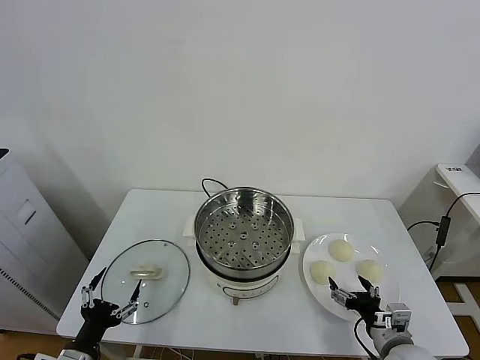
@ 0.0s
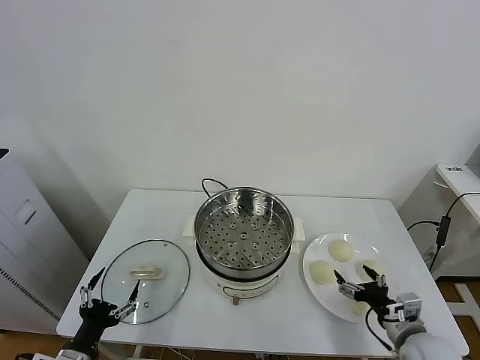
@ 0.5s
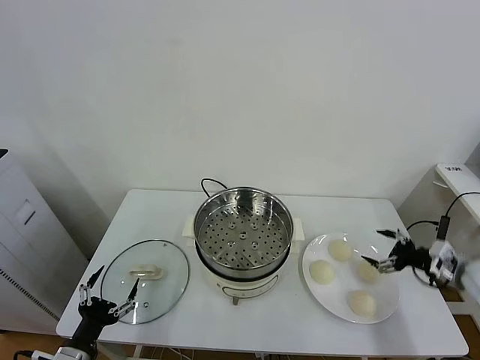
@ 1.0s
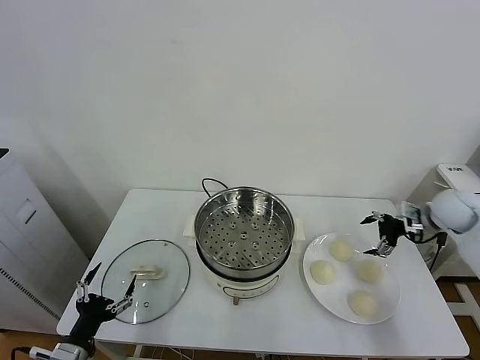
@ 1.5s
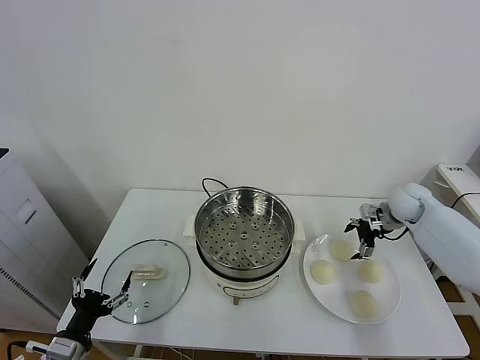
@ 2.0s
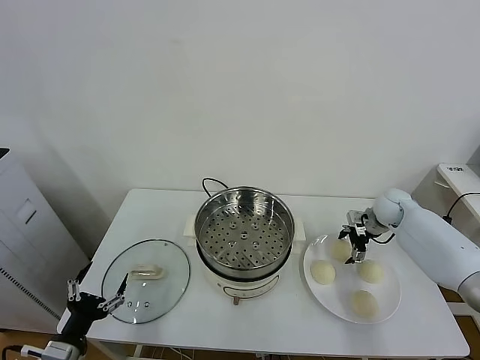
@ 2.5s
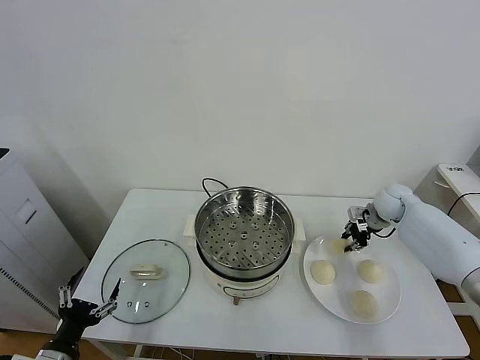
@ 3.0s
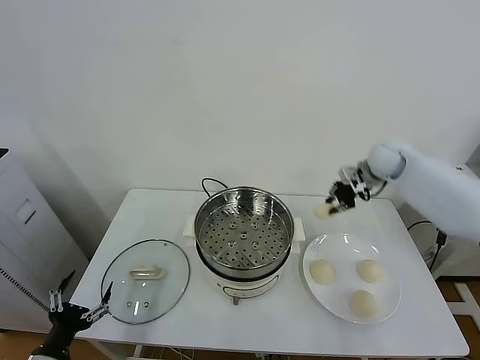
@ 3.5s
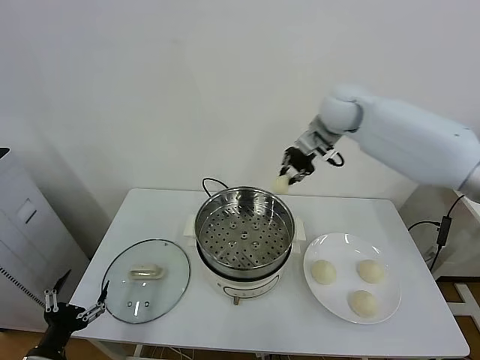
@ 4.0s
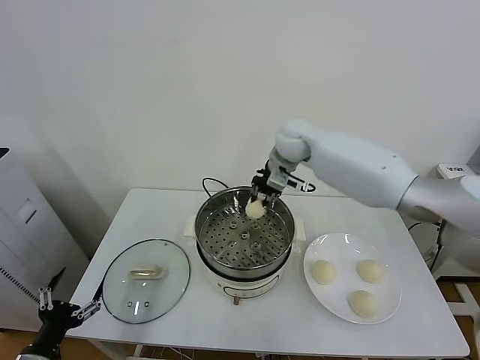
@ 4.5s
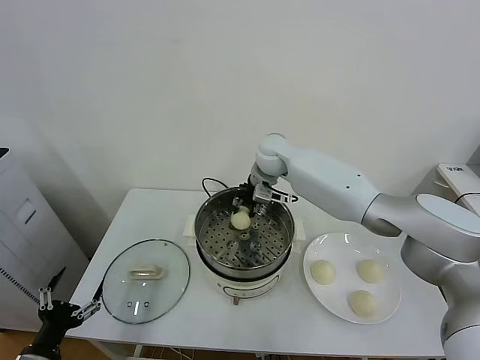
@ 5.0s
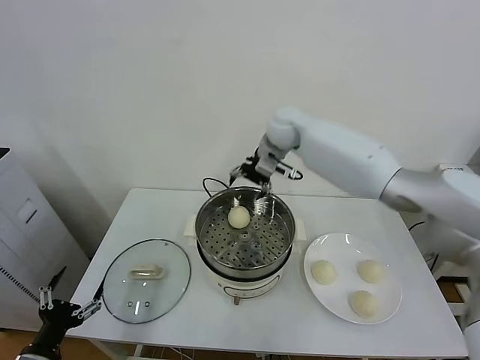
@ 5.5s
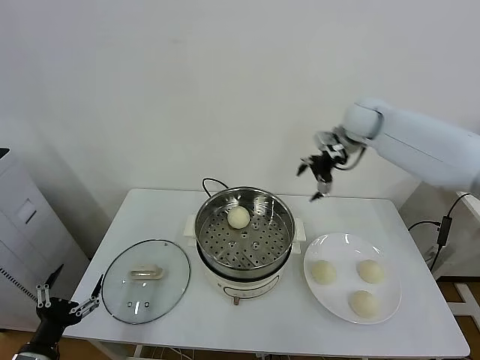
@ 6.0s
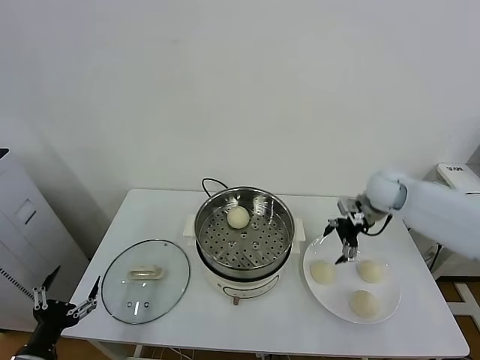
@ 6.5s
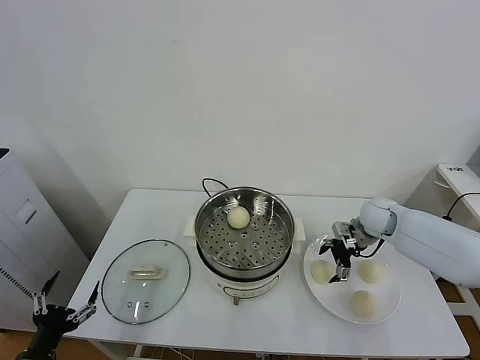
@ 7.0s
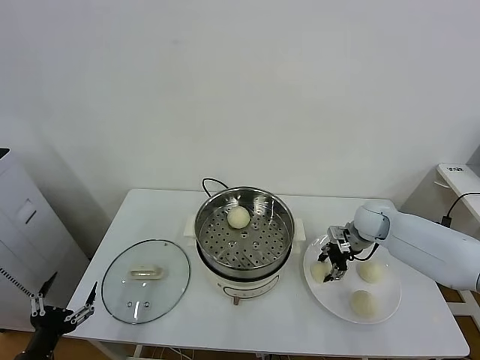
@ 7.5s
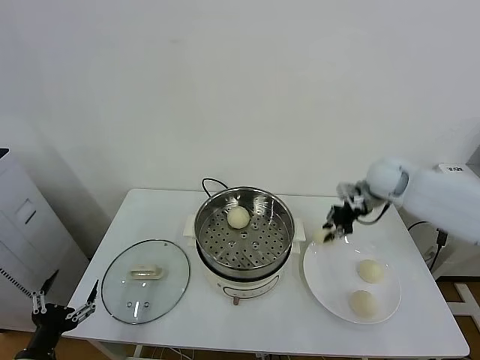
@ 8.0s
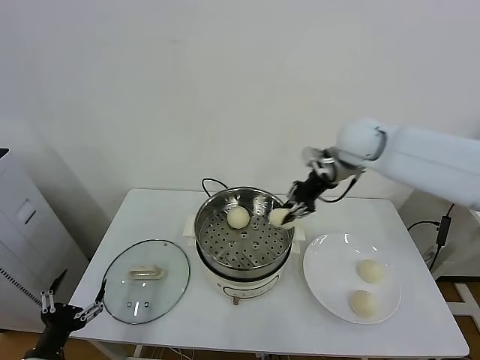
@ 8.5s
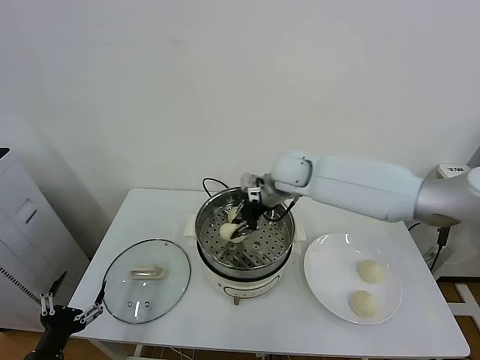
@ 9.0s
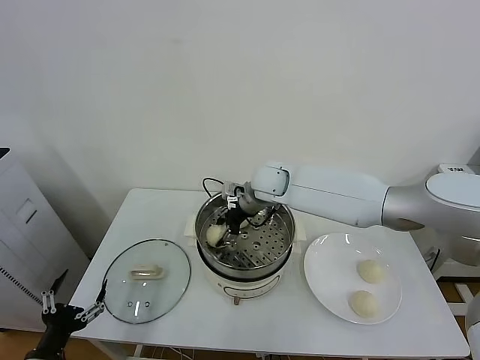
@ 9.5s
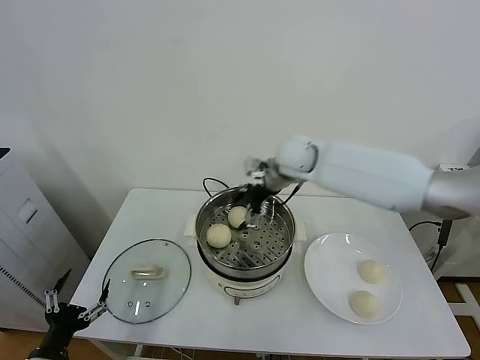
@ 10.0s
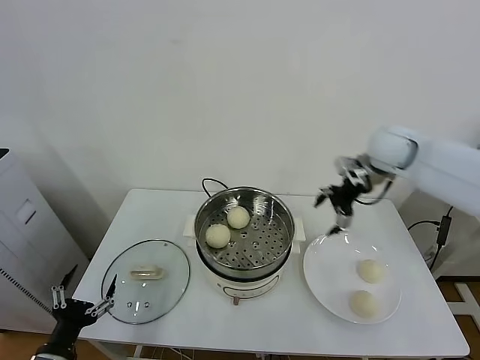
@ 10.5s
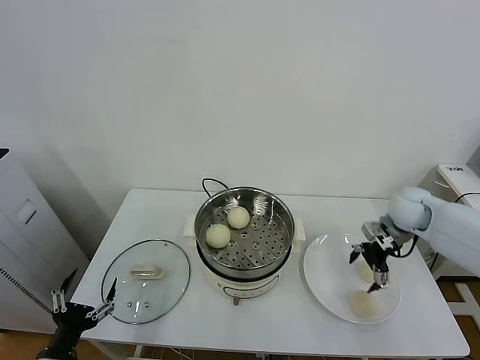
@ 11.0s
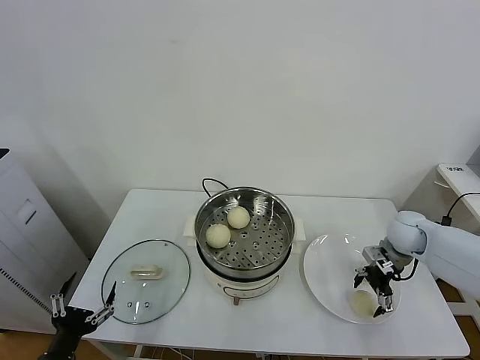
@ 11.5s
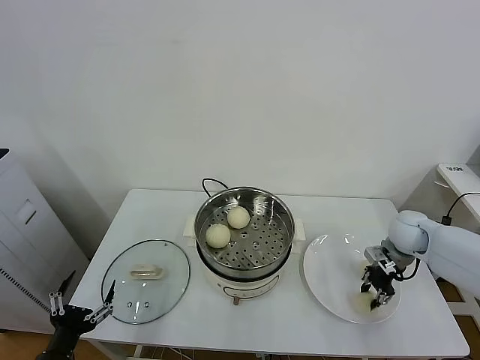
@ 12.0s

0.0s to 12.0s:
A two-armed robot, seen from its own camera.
Task of the whole recording: take steamed baozi put them in steamer.
Step, 0.0s to 2.5s: Grasp the baozi in the plate with right gripper.
Step, 3.0s to 5.0s: Place the baozi on the steamer with right gripper.
Step, 5.5s to 7.5s: Grasp the baozi in the plate with right gripper.
Step, 8.0s to 9.5s: Place the baozi on the steamer with right gripper.
2.0s to 4.0s: The right gripper shifts about 35 cm to the left and upward, and closes.
4.0s to 6.0s: The right gripper heads to the right, covering approximately 10 cm, and opens up.
6.0s to 8.0s: The right gripper moves some 20 cm downward and comes back, and closes up.
8.0s to 10.0s: The right gripper heads to the left, covering about 20 cm, and opens.
10.0s to 12.0s: The right gripper moves to the right and downward, roughly 30 cm, and closes up.

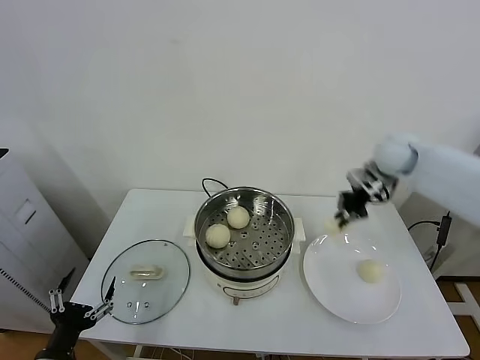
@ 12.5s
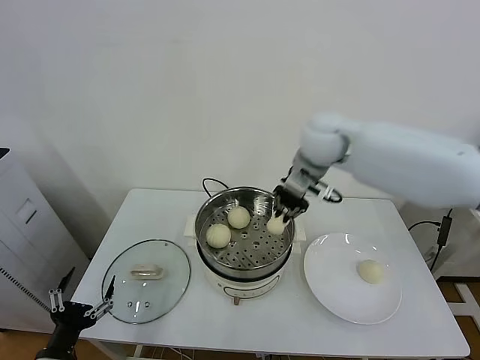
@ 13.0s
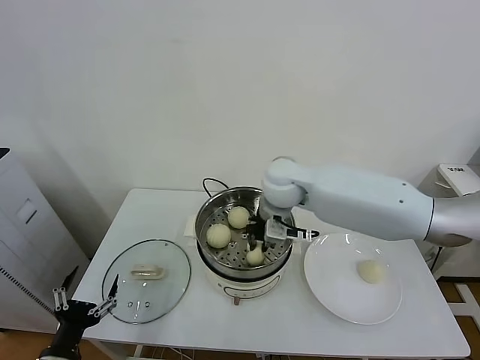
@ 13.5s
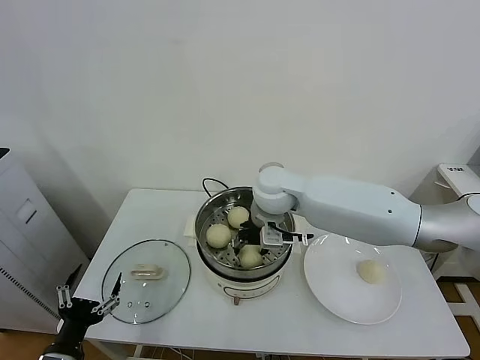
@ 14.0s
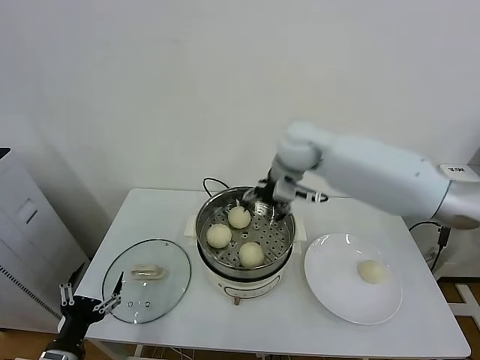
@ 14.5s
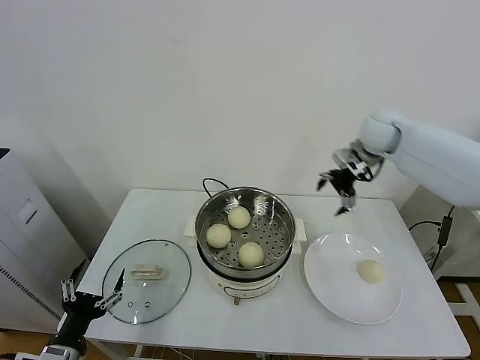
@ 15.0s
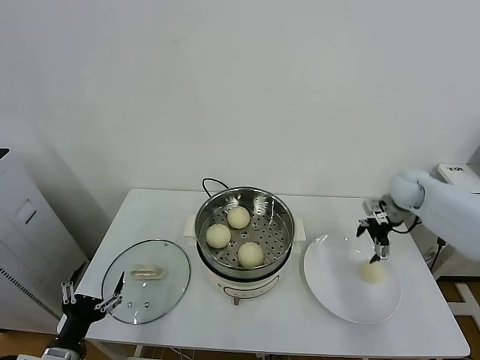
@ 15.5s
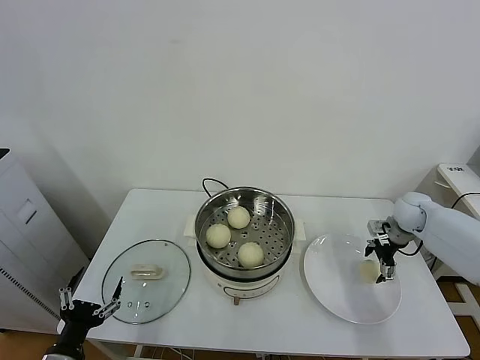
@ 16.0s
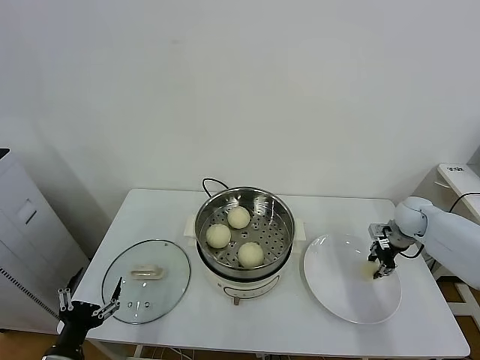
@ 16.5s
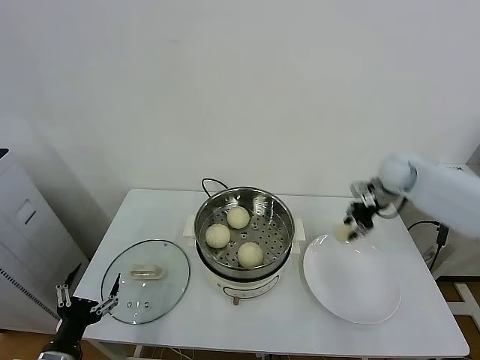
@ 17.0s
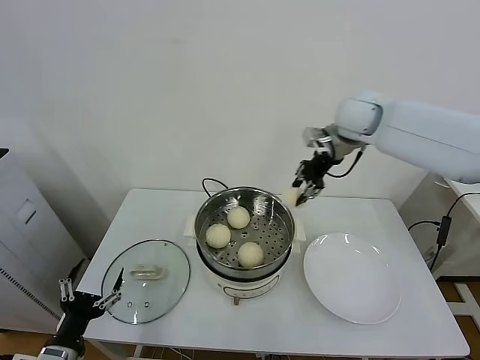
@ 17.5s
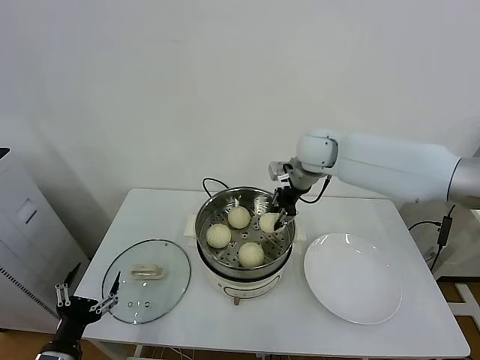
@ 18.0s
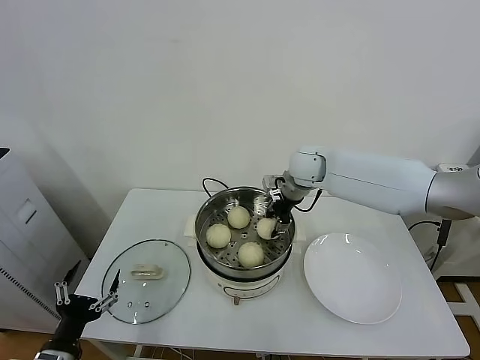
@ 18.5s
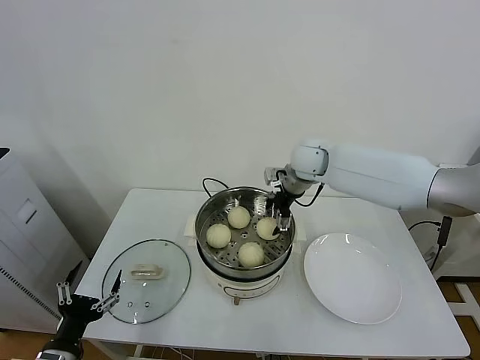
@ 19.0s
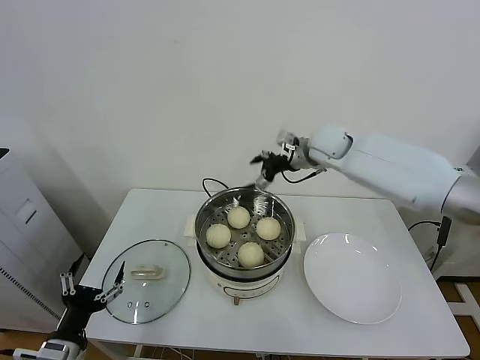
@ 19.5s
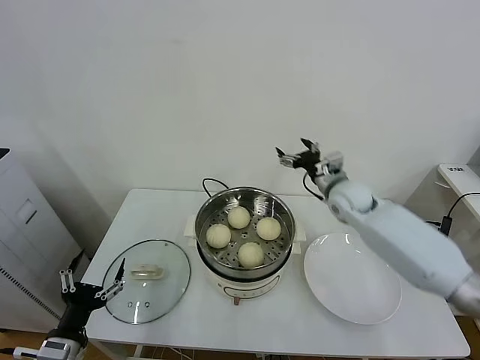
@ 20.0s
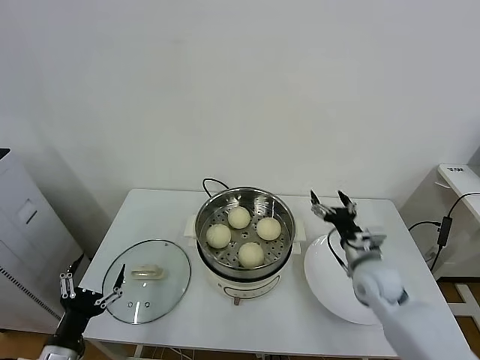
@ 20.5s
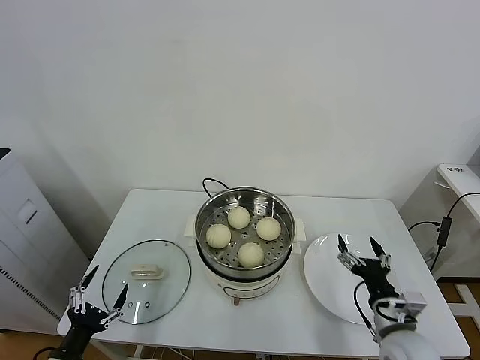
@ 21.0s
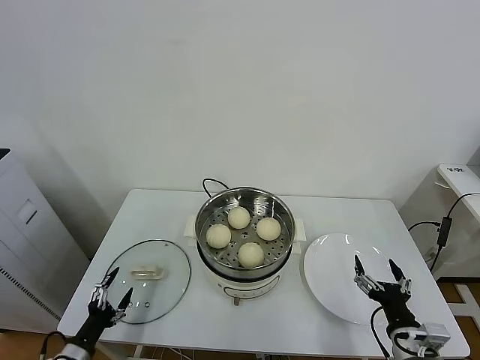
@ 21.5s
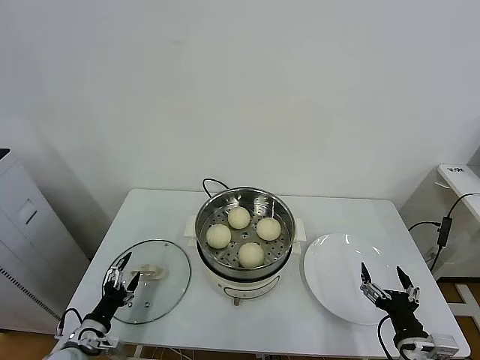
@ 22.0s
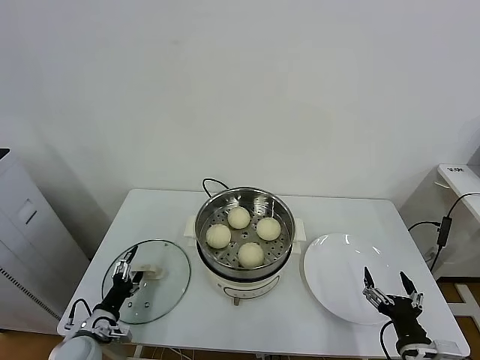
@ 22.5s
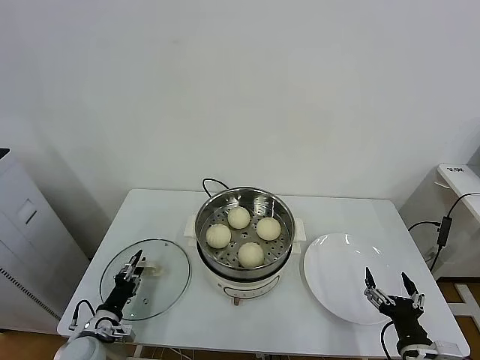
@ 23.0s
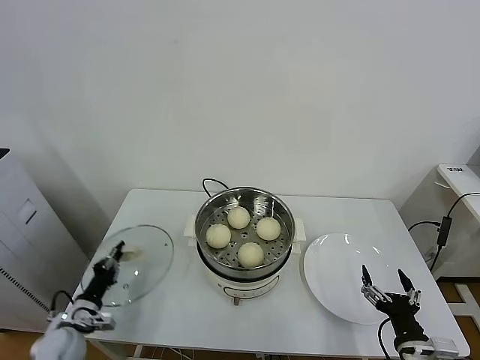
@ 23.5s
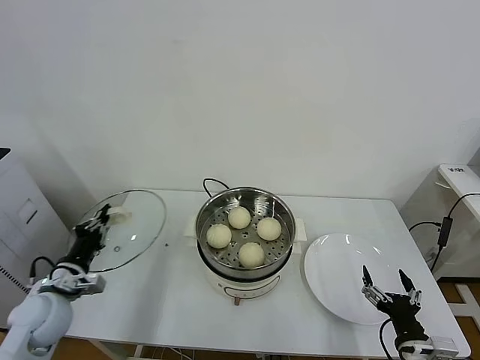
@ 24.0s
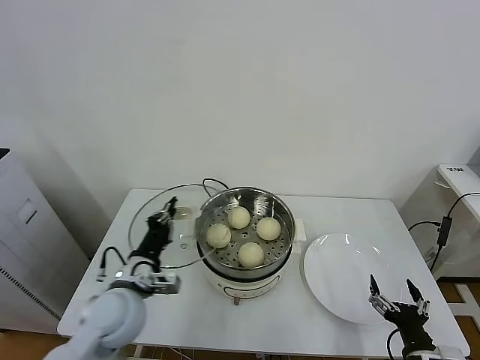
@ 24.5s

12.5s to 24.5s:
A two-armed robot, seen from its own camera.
Task of the whole recording: take steamed baozi put them in steamer.
Step, 12.5s to 14.0s: Place the baozi on the steamer with right gripper.
Step, 14.5s to 16.5s: Grasp the baozi in the plate with right gripper.
Step, 17.0s to 18.5s: Place the baozi on the steamer with right gripper.
Step, 19.0s to 23.0s: Grasp the pot lid with left gripper.
12.5s to 14.5s: The right gripper goes approximately 20 cm to the left, and opens.
14.5s to 16.5s: The right gripper travels to the right and downward by roughly 40 cm, and closes up.
16.5s to 18.5s: The right gripper goes roughly 30 cm to the left and upward.
18.5s to 20.5s: The right gripper goes roughly 30 cm backward, downward and to the right, and opens.
20.5s to 22.5s: The right gripper shifts approximately 20 cm backward, while the left gripper moves downward and forward, roughly 15 cm.
22.5s to 24.5s: The left gripper goes some 25 cm upward and to the right, and closes.

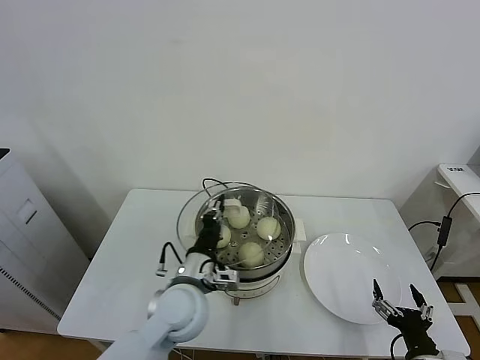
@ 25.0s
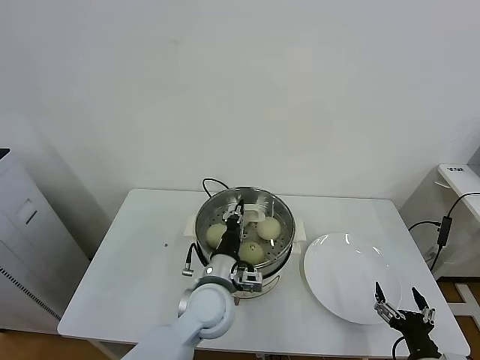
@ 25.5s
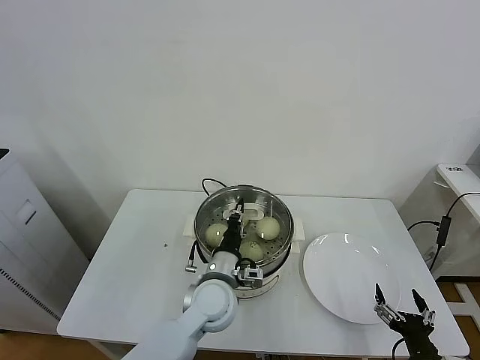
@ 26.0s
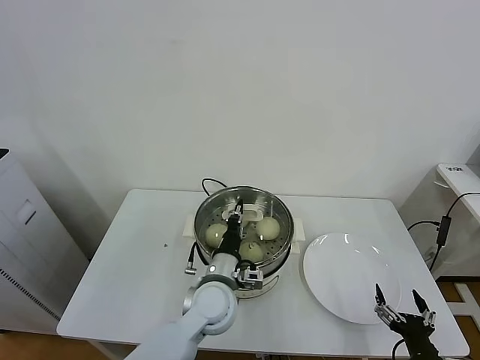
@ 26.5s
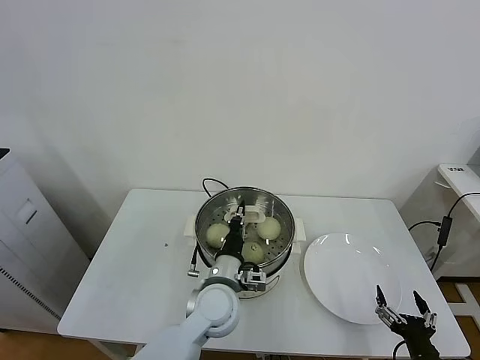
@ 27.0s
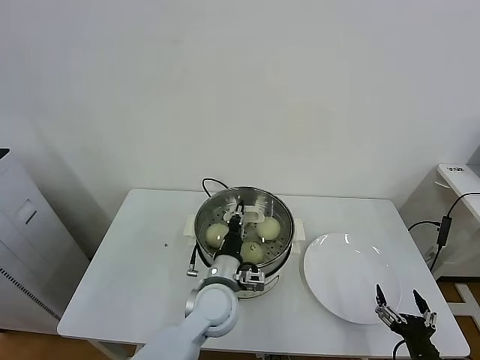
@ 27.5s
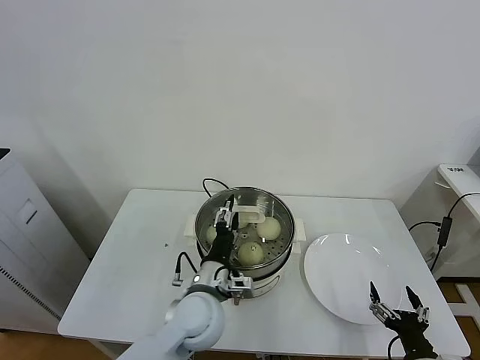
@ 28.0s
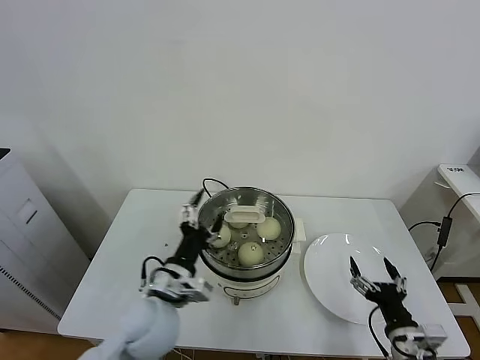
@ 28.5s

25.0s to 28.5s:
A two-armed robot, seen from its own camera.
Task of the whole recording: take steamed baozi put them in steamer.
Step, 25.0s to 28.0s: Place the pot lid on the steamer with left gripper.
25.0s to 27.0s: The left gripper goes approximately 5 cm to the right.
27.0s to 28.5s: The right gripper moves forward, roughly 5 cm, while the left gripper heads to the left and backward, covering some 10 cm, and opens its fingers.
